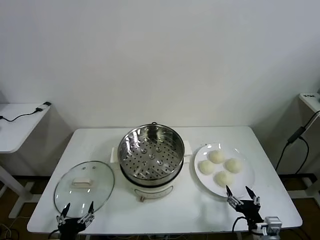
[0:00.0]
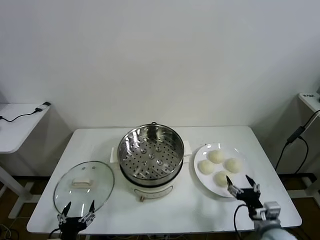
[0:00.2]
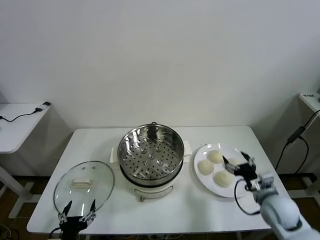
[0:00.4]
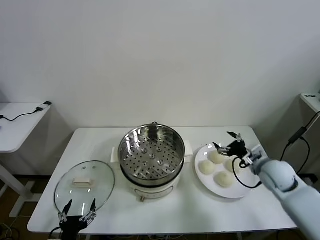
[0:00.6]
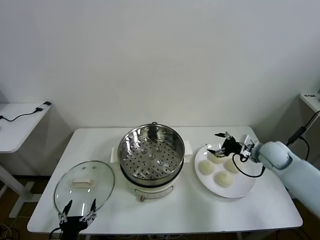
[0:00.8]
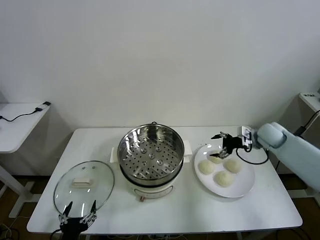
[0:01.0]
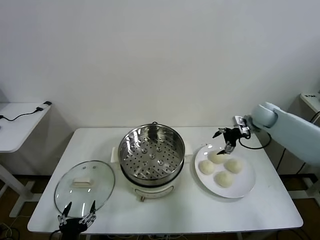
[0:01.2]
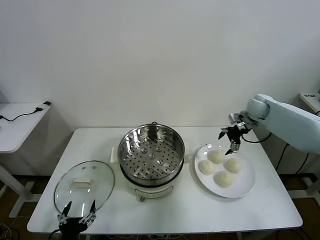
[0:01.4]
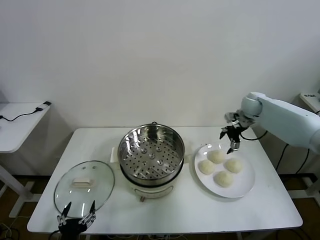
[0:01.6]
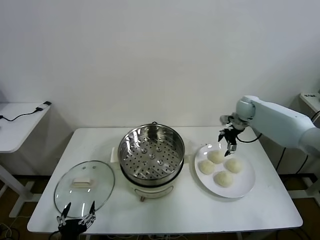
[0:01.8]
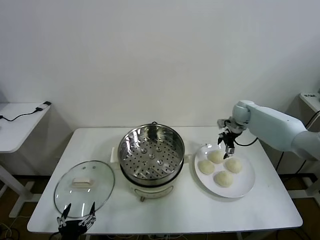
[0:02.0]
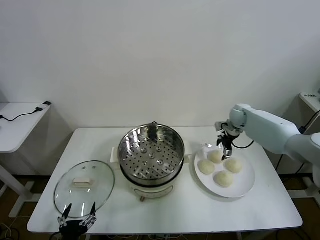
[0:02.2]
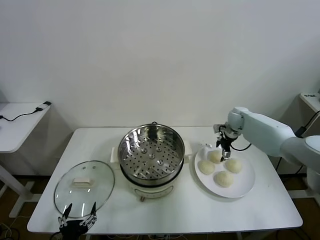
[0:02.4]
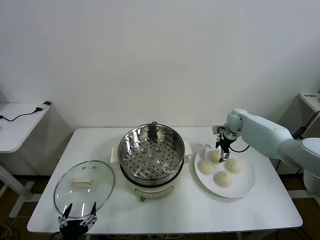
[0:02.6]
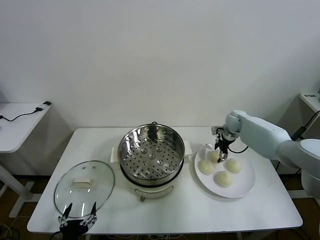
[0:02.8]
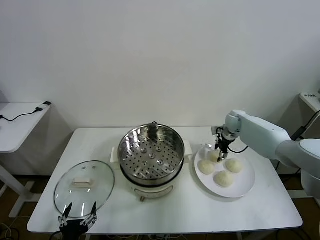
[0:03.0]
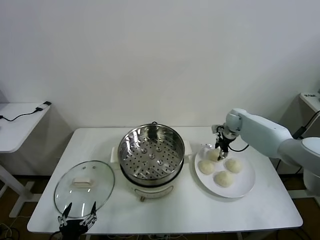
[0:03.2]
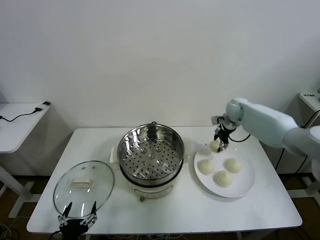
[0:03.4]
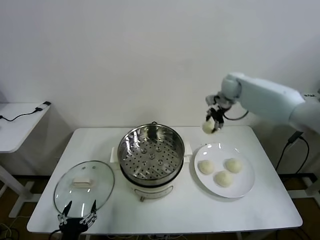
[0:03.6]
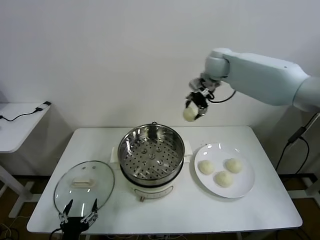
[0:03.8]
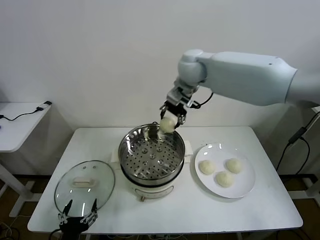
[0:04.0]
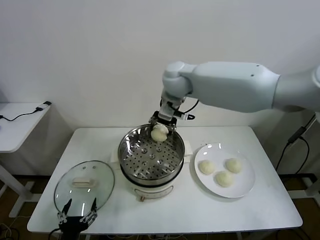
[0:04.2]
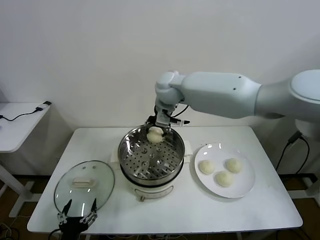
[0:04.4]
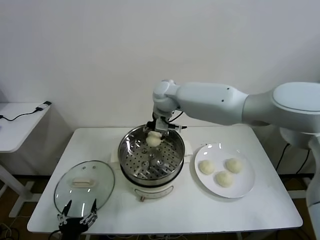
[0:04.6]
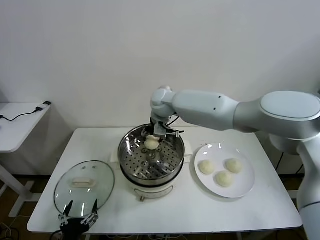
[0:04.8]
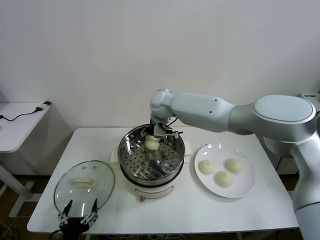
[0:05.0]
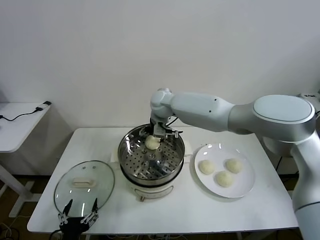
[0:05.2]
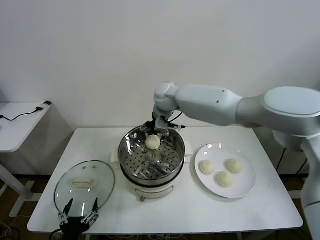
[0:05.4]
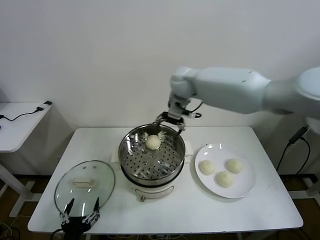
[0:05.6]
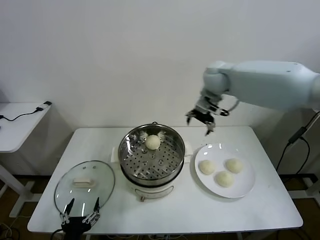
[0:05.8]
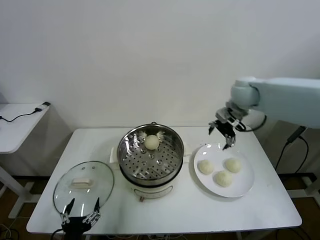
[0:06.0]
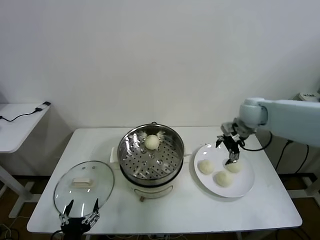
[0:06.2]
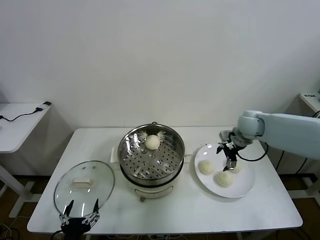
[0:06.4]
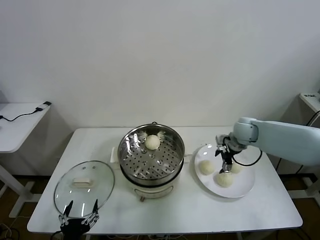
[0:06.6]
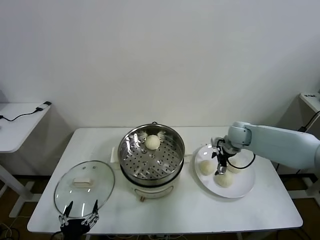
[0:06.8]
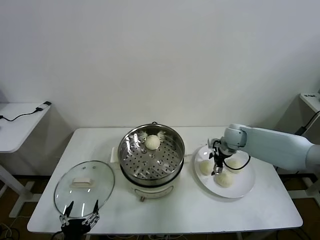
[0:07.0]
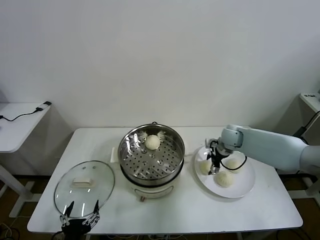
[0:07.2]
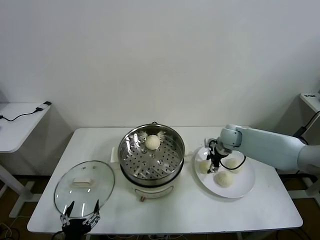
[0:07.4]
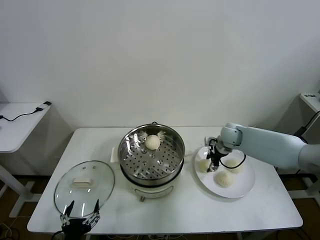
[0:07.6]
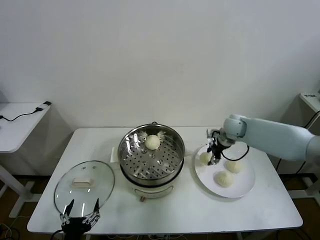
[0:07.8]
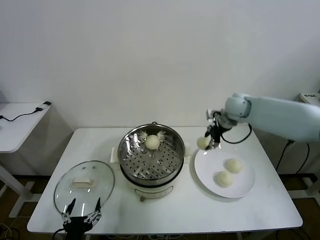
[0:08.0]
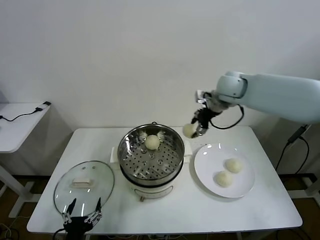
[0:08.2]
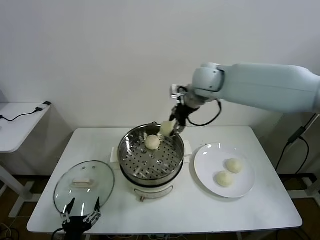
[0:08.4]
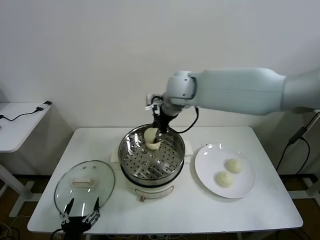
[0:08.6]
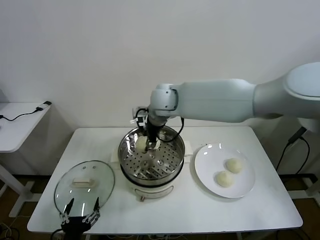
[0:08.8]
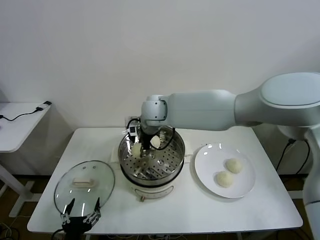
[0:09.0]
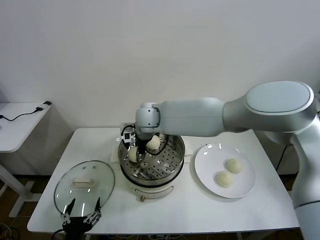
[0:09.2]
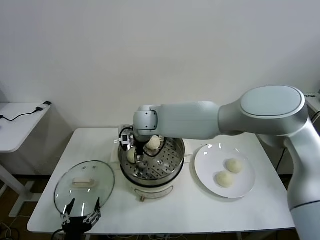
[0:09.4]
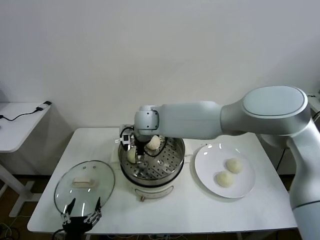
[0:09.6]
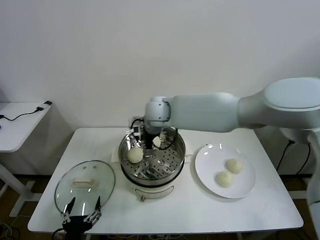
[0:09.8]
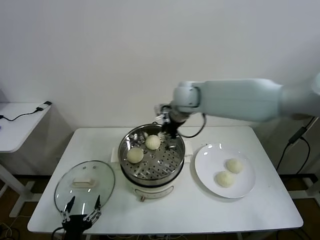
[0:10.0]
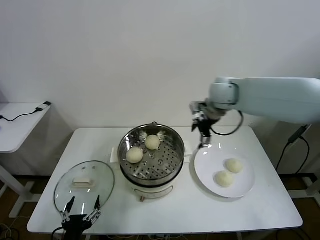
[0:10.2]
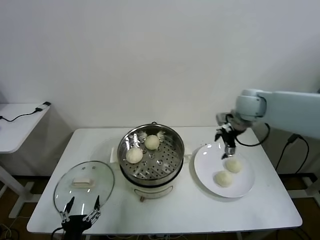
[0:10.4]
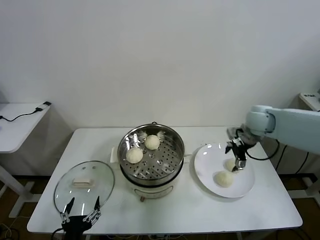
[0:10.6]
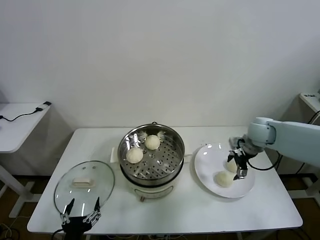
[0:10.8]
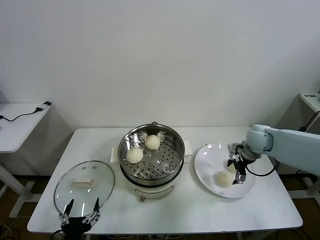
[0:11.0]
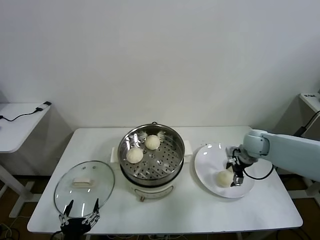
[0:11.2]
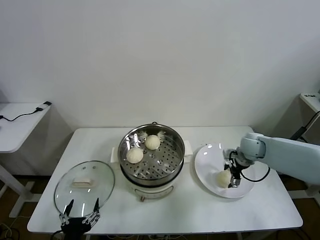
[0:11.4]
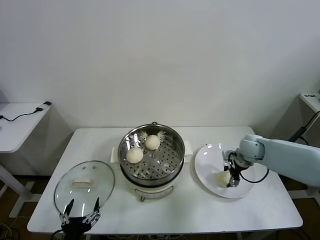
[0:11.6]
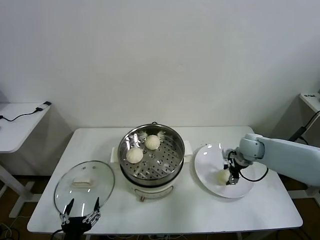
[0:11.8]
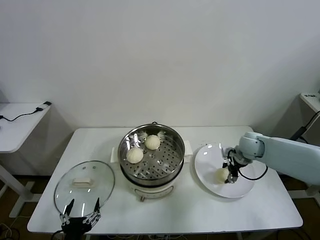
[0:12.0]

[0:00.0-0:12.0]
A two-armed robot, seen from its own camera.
Task of the whole recording: take steamed baozi put them in steamer then cover it.
Step, 0:00.0 to 0:02.8: Grasp the baozi in the plate with right gripper.
Step, 0:03.2 to 0:05.2: Place the baozi on the steamer with right gripper.
Step, 0:05.4 to 0:07.4: Grasp the baozi in the plate with right gripper.
Step, 0:07.6 to 0:09.6: Place the baozi on the steamer with right gripper.
Step, 0:09.8 to 0:11.6: Grasp the baozi in the plate with right gripper.
0:01.6 to 0:03.0: The right gripper goes approximately 10 cm downward, and closes up.
0:03.0 to 0:04.4: The right gripper shifts some 35 cm to the left and upward.
0:04.4 to 0:06.0: The right gripper travels to the right by some 30 cm, and opens its fingers.
0:06.0 to 0:07.6: The right gripper is displaced downward by some 15 cm, and closes.
0:07.6 to 0:09.0: The right gripper moves to the left and upward, about 35 cm.
0:09.0 to 0:10.4: The right gripper moves to the right, roughly 35 cm, and opens.
0:10.4 to 0:12.0: The right gripper goes roughly 15 cm downward, and closes its fingers.

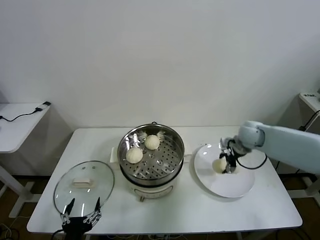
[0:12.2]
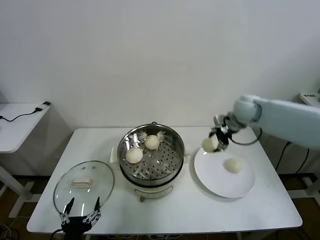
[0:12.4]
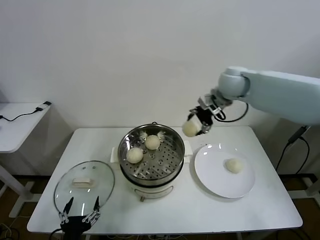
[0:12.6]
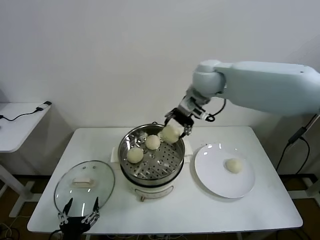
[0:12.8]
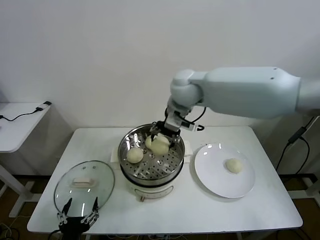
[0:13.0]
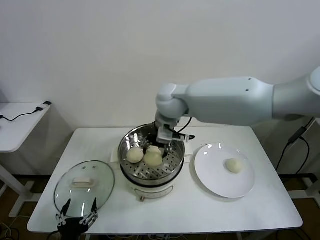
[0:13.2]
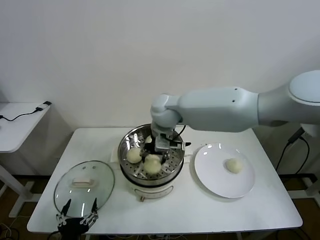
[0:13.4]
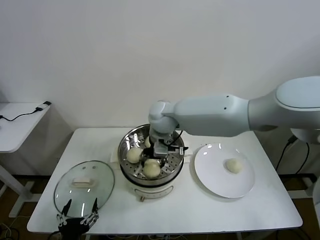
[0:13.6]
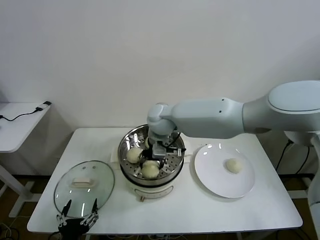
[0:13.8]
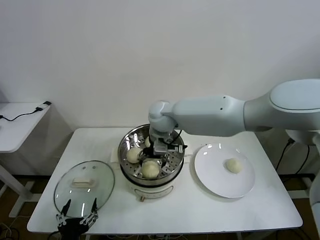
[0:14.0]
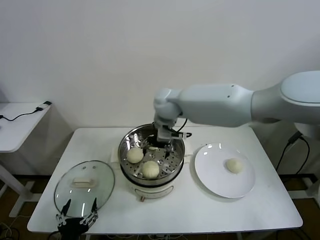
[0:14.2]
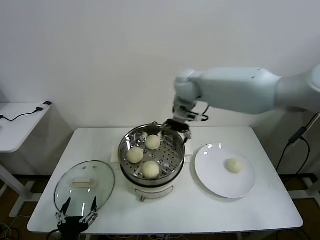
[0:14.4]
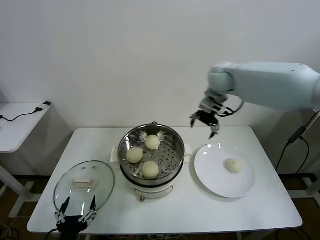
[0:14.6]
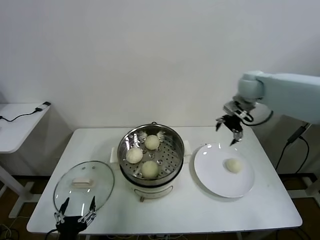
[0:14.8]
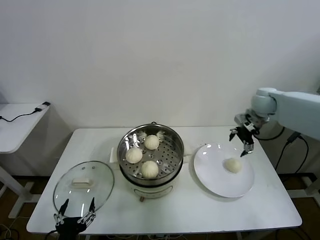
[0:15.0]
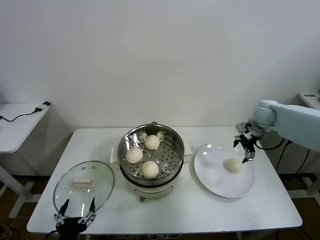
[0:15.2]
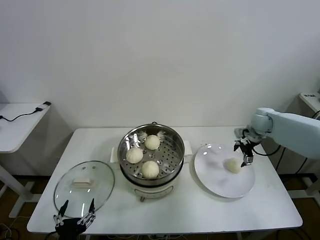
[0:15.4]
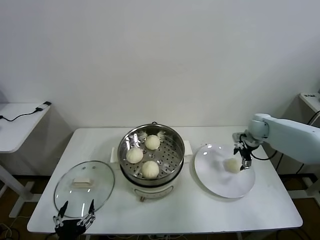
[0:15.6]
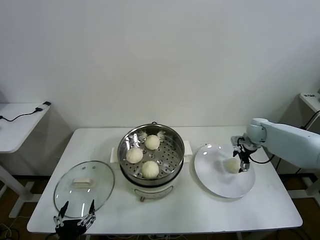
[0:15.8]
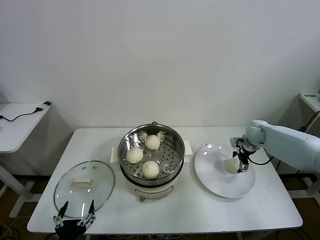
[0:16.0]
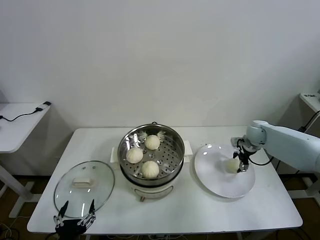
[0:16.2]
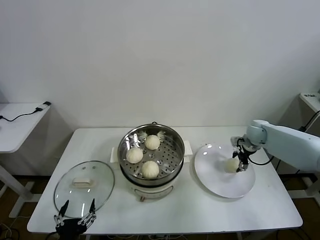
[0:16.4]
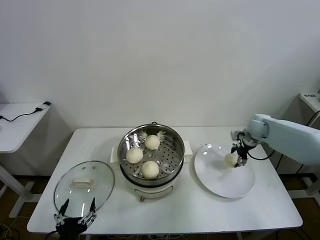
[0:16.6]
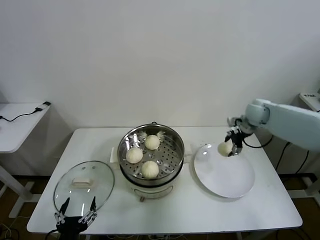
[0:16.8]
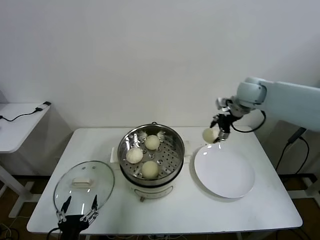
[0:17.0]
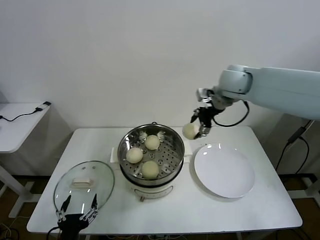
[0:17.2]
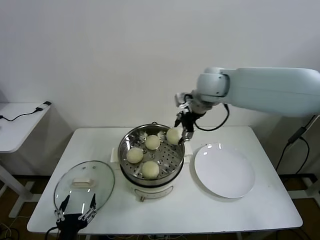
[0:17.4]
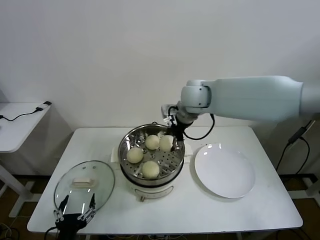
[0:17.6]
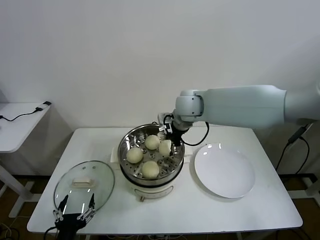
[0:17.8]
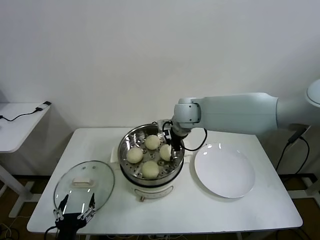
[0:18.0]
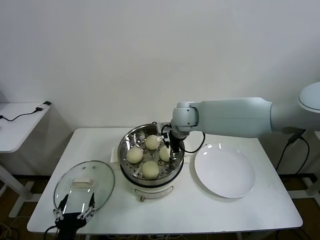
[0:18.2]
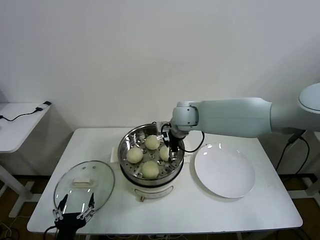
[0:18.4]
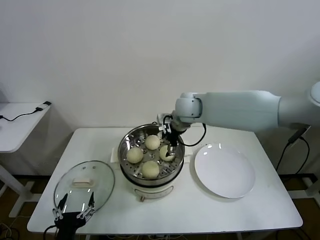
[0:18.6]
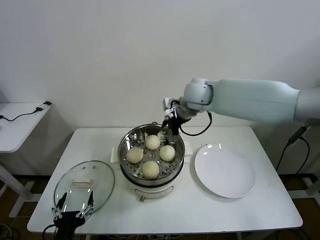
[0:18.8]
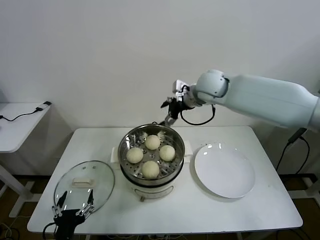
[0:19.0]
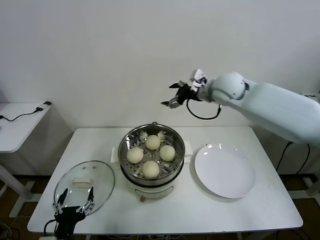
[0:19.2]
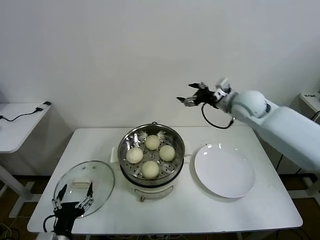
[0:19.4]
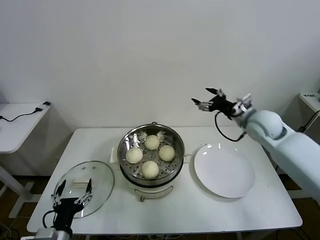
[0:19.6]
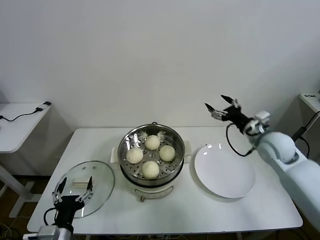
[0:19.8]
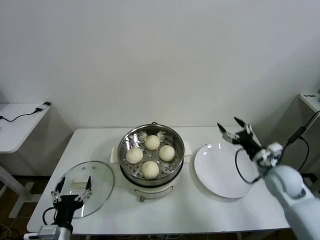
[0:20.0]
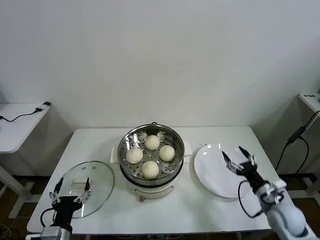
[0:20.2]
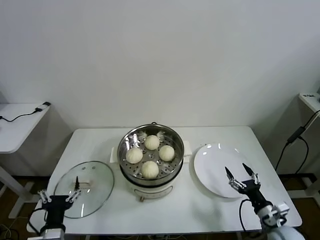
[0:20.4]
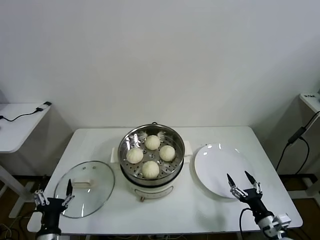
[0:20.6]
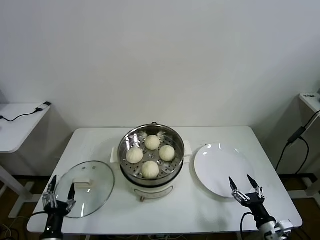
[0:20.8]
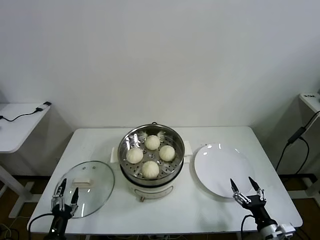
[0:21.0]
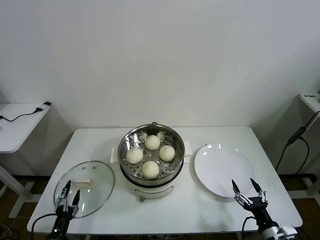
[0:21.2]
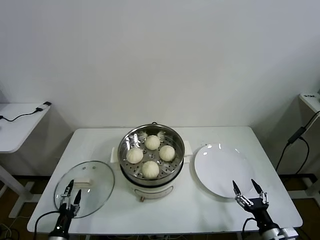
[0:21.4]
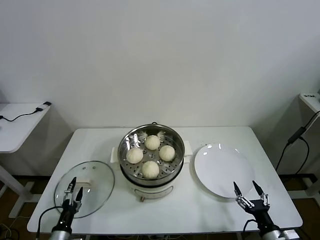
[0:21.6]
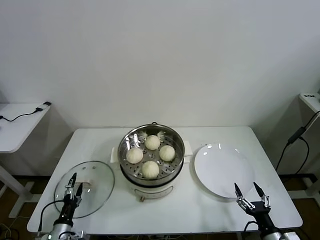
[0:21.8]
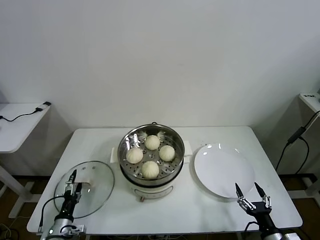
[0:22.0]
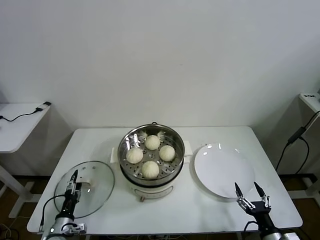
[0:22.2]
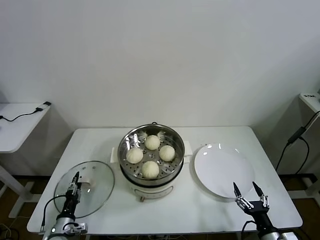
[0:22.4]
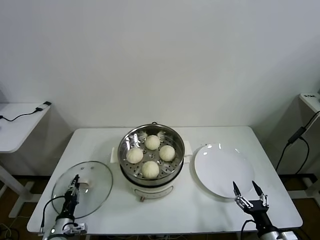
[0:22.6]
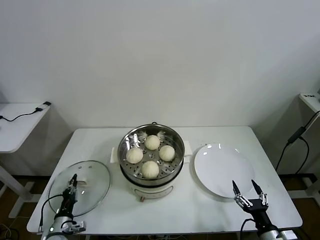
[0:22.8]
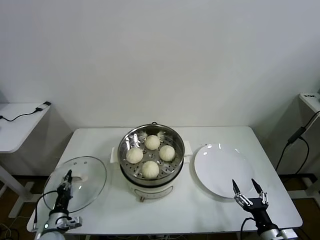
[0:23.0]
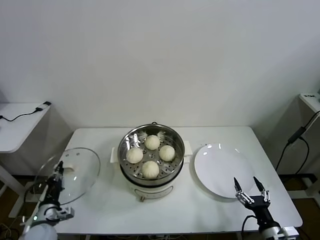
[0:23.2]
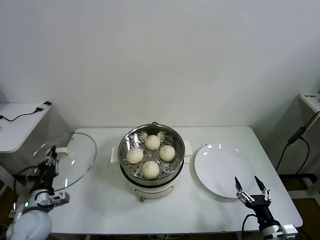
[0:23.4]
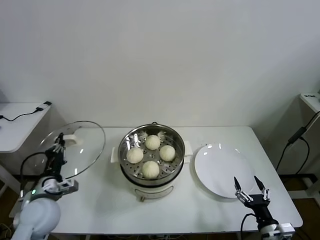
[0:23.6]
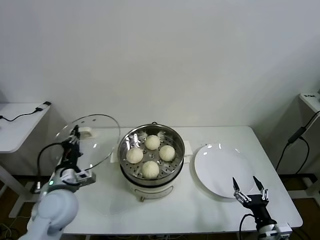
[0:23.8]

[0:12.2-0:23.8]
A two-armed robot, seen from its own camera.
Task of the whole recording: take steamed baozi put them in steamer then cover it.
Step, 0:12.2 to 0:14.0: Place the baozi on the steamer with right gripper.
Step, 0:14.2 to 0:16.2: Grasp the baozi in the plate with right gripper.
Step, 0:16.4 to 0:18.2: Place the baozi on the steamer with right gripper.
Step, 0:18.6 to 0:22.6: Grasp the pot lid with left gripper.
0:12.2 to 0:13.6: The right gripper heads to the left, covering about 30 cm.
0:13.6 to 0:15.0: The right gripper travels to the right by about 35 cm, and opens up.
0:15.0 to 0:16.6: The right gripper goes about 10 cm downward, and closes up.
0:16.6 to 0:18.0: The right gripper is displaced to the left by about 30 cm.
0:18.0 to 0:19.4: The right gripper travels to the right by roughly 20 cm, and opens its fingers.
0:19.4 to 0:21.0: The right gripper shifts about 50 cm backward and downward, while the left gripper moves downward and to the left, some 15 cm.
0:21.0 to 0:22.4: The left gripper travels forward and downward by roughly 10 cm, and closes its fingers.
0:22.4 to 0:23.8: The left gripper is displaced upward by about 25 cm, and closes its fingers.
